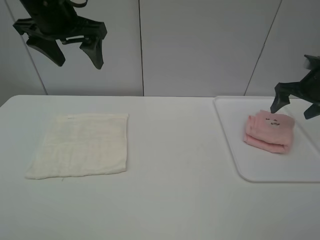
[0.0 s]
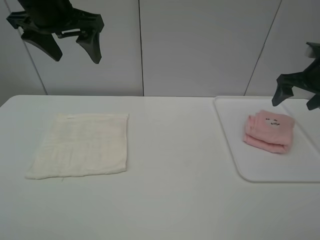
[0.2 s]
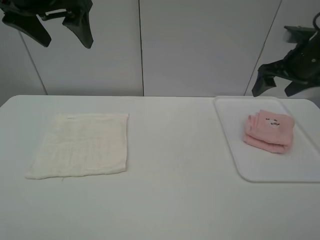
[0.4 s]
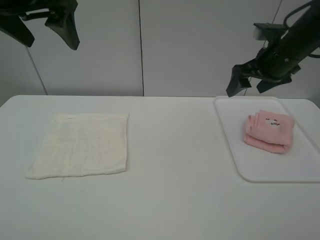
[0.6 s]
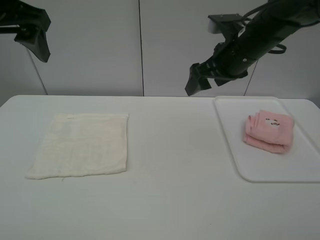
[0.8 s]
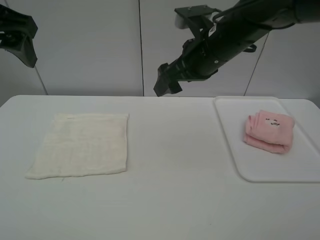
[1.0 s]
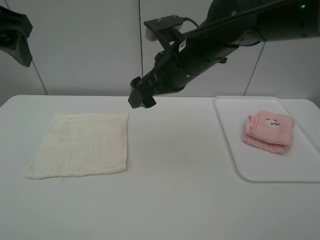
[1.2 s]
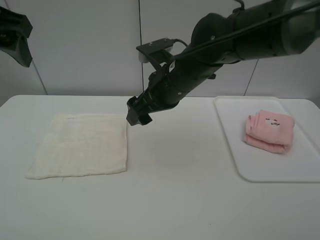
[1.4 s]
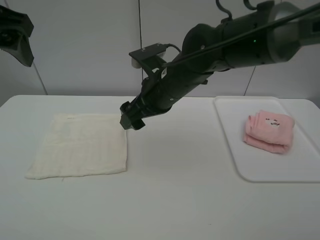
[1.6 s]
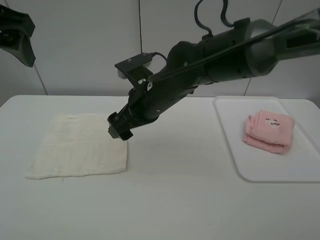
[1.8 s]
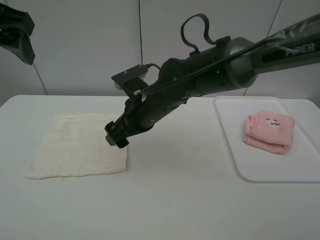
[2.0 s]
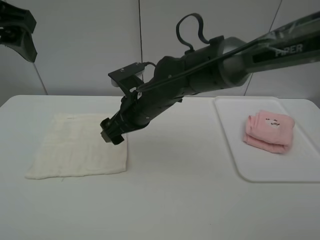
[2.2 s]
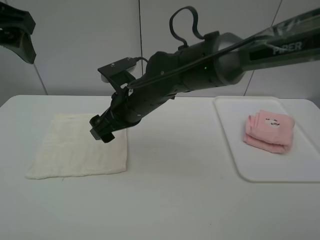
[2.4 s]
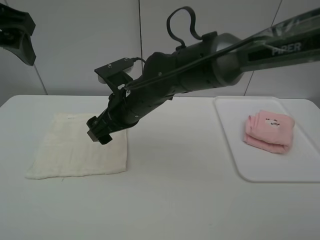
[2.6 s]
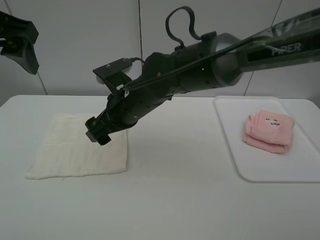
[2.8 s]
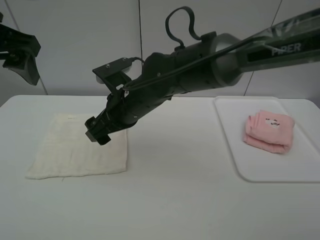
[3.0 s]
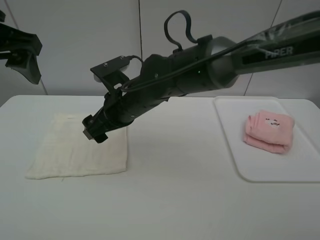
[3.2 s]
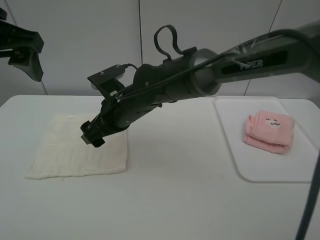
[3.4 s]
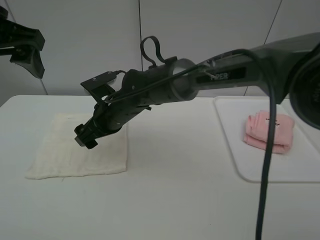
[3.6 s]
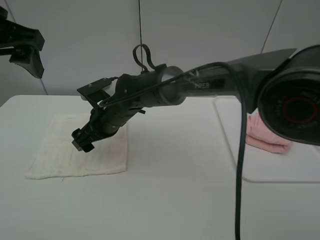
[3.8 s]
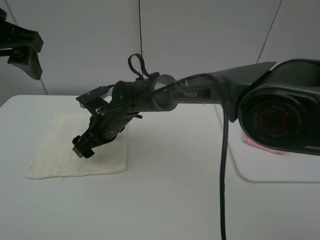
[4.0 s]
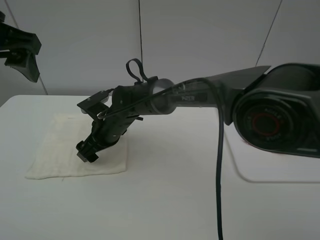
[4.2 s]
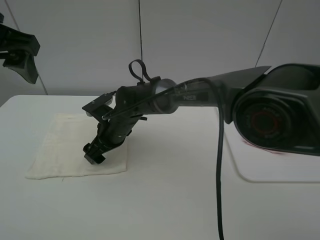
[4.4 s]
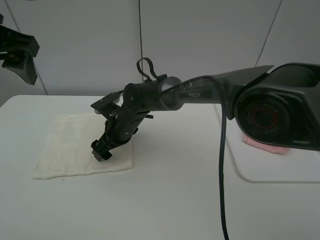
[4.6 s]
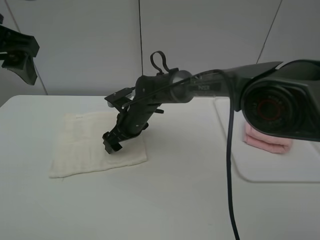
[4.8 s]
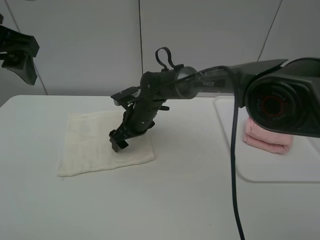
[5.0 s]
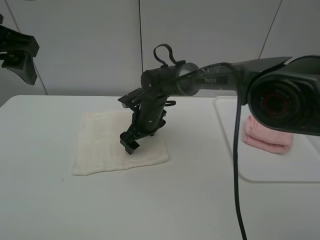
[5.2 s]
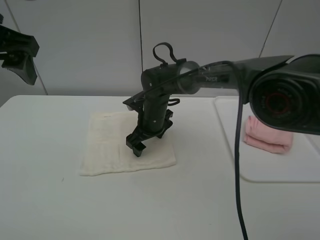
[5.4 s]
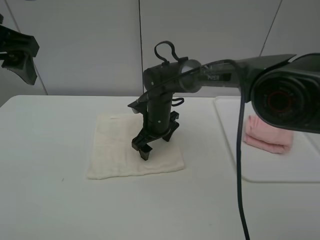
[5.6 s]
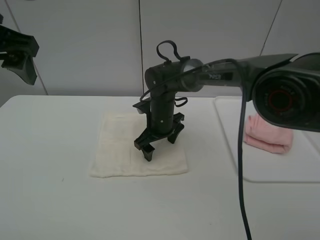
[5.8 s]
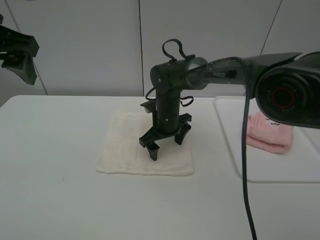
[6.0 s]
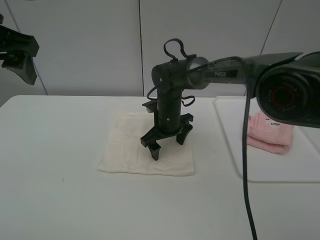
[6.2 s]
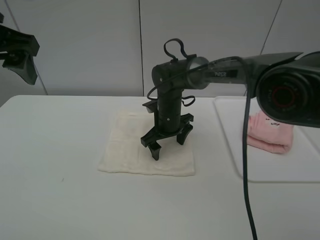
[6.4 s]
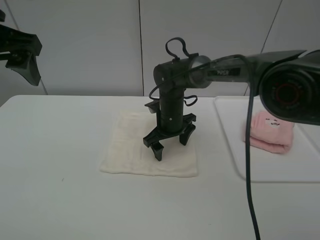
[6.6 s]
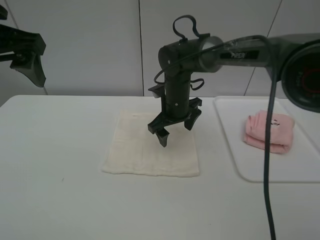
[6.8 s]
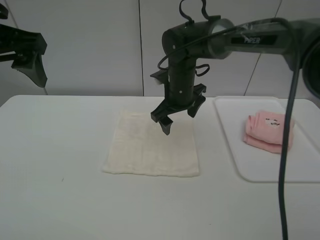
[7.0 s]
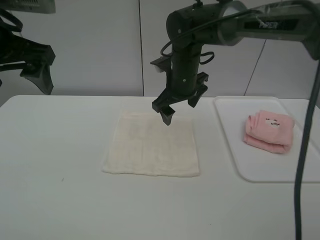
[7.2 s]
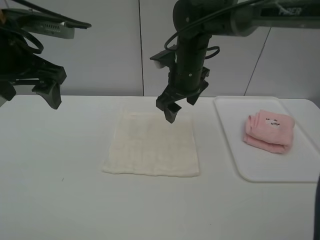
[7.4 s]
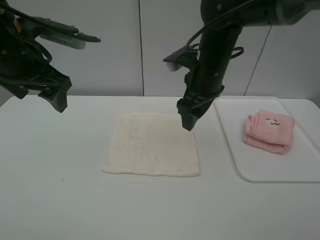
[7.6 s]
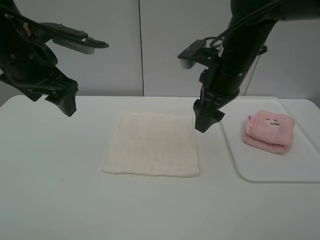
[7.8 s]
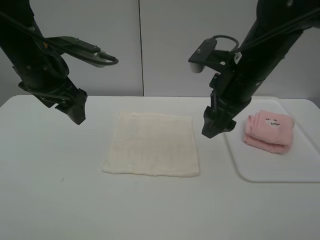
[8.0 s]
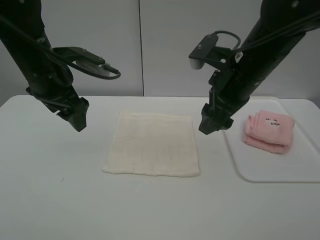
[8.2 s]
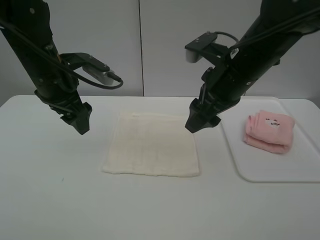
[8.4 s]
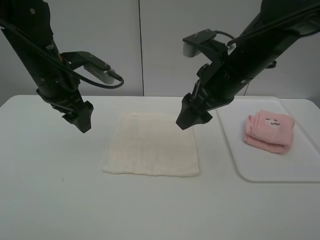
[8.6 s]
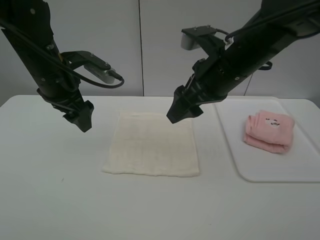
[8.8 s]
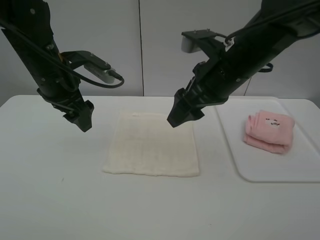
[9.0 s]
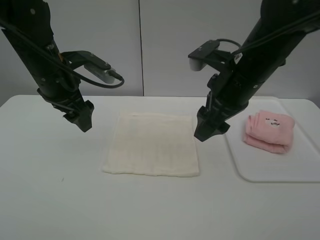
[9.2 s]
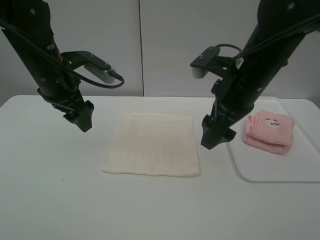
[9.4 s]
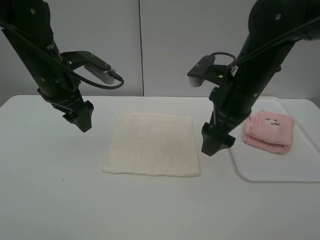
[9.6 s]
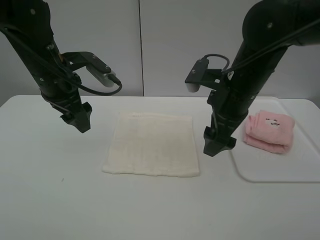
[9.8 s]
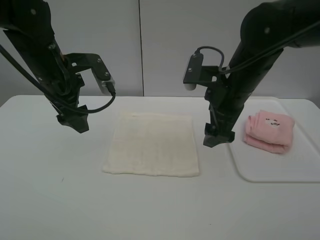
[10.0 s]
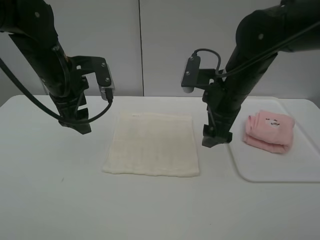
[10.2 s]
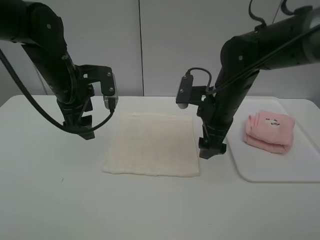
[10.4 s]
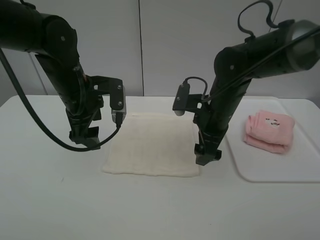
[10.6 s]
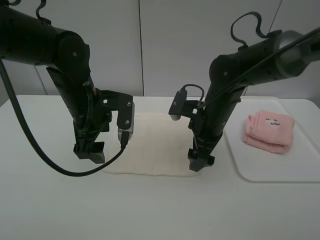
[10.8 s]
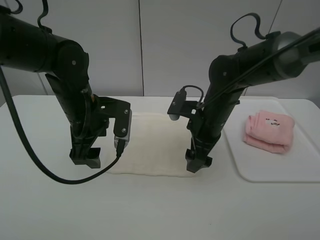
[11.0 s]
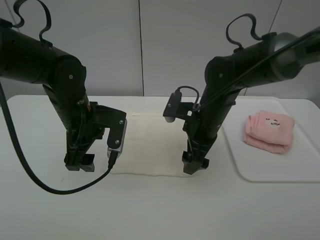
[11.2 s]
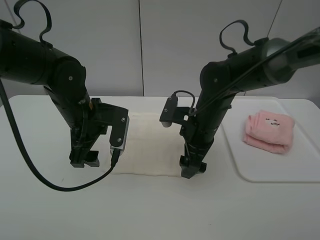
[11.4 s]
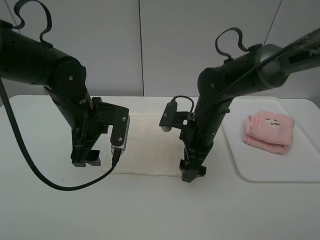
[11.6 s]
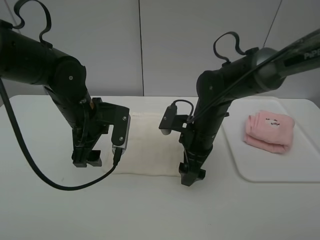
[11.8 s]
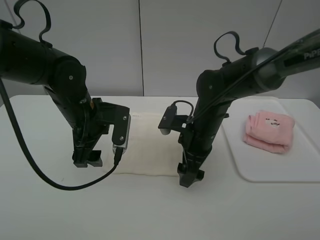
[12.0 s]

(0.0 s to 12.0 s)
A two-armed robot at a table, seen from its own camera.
Task of the whole recording: fold one of the towels by two grippers and place it on the tray,then fold another towel by two grippers and place it on the folded towel.
0.0 s - 1.6 s: The left gripper goes some 10 cm backward and to the left; the right gripper moves to the left, about 35 cm.
1.6 s - 3.0 s: The right gripper moves to the left, some 5 cm.
3.0 s - 4.4 s: The right gripper is displaced downward and forward by about 10 cm.
4.4 s - 6.0 s: The right gripper shifts some 10 cm to the right.
6.0 s - 7.6 s: The right gripper moves upward and to the right, approximately 15 cm. Meanwhile the left gripper travels downward by some 5 cm.
7.6 s - 9.0 s: The left gripper heads downward, covering some 5 cm. The right gripper is displaced backward by about 5 cm.
9.0 s - 10.4 s: The right gripper goes some 10 cm downward.
10.4 s - 12.0 s: The right gripper travels downward by about 5 cm; the left gripper moves roughly 5 cm.

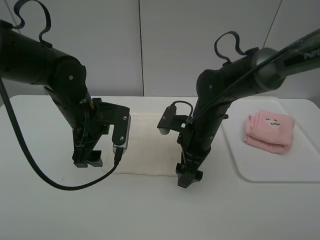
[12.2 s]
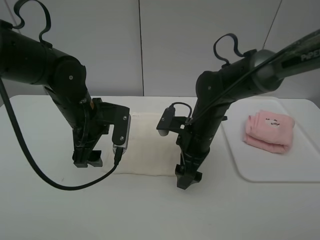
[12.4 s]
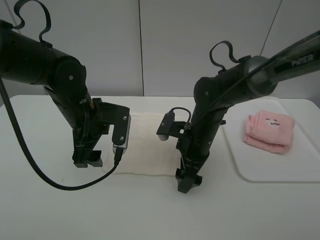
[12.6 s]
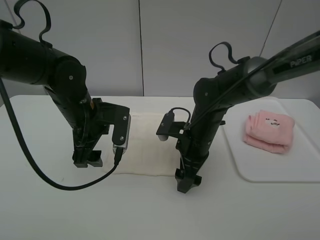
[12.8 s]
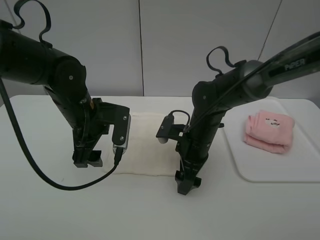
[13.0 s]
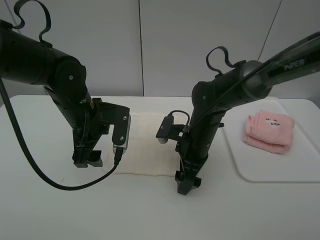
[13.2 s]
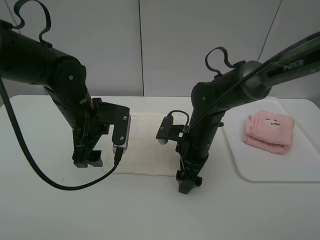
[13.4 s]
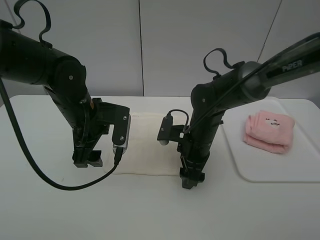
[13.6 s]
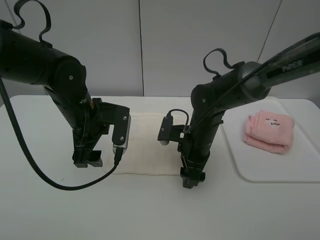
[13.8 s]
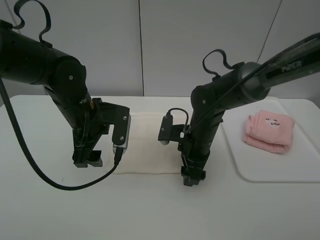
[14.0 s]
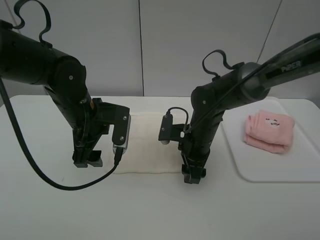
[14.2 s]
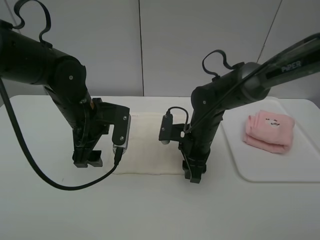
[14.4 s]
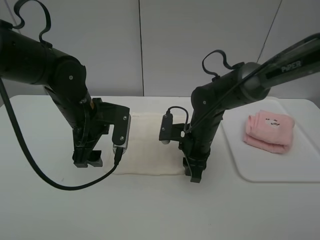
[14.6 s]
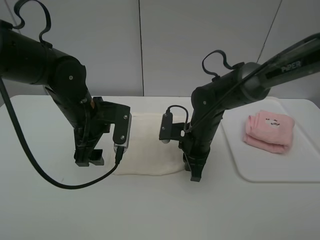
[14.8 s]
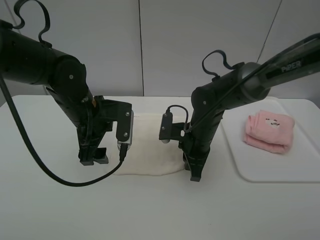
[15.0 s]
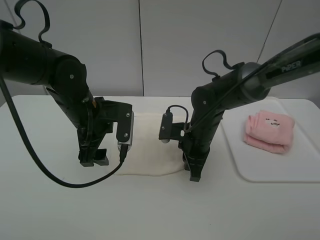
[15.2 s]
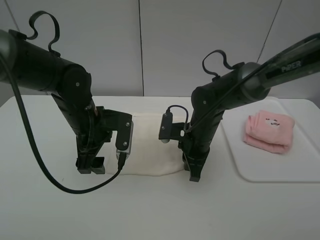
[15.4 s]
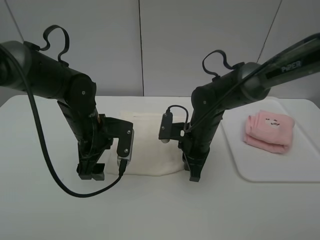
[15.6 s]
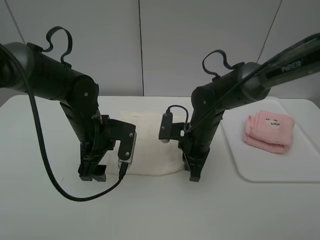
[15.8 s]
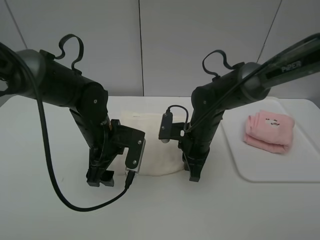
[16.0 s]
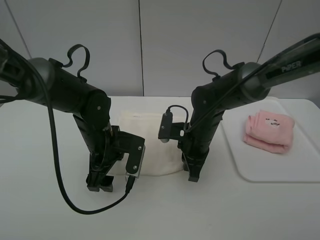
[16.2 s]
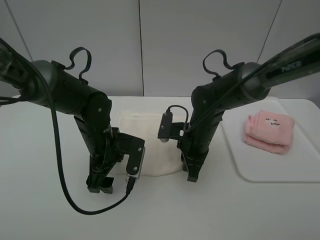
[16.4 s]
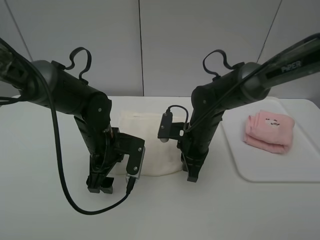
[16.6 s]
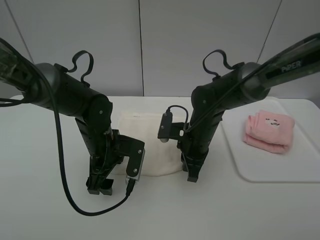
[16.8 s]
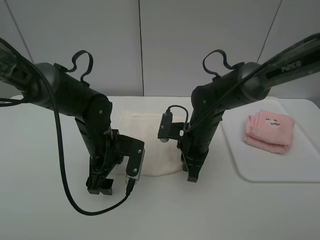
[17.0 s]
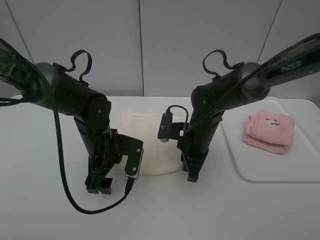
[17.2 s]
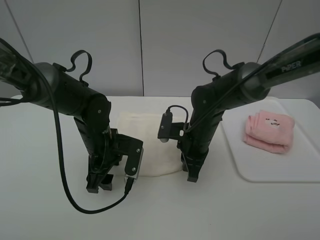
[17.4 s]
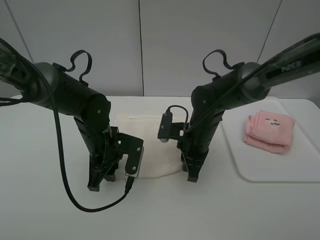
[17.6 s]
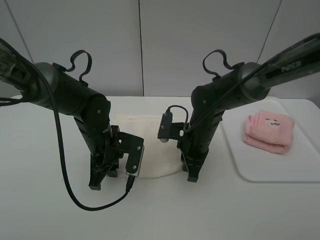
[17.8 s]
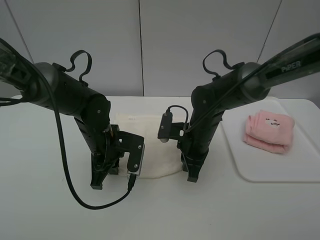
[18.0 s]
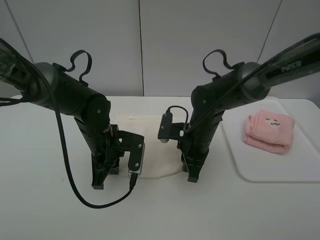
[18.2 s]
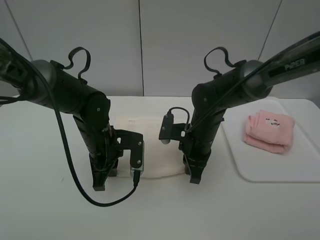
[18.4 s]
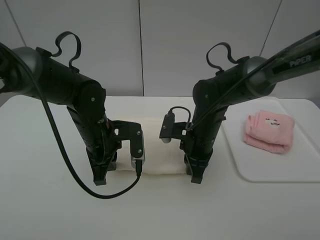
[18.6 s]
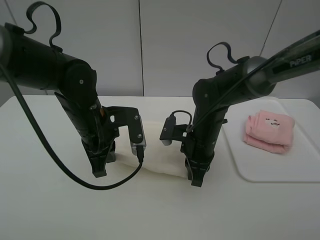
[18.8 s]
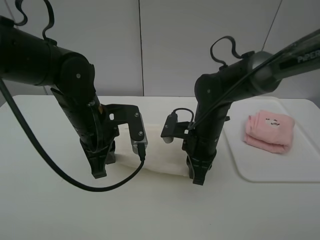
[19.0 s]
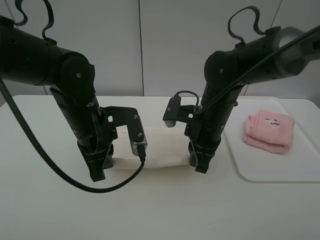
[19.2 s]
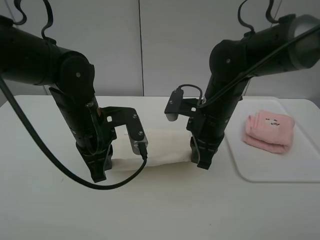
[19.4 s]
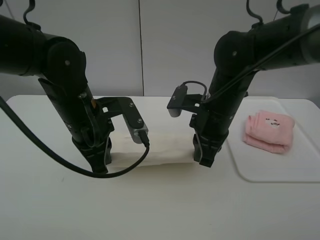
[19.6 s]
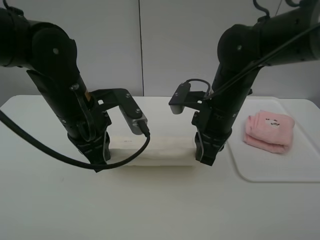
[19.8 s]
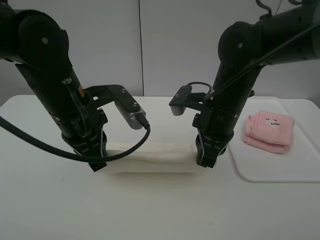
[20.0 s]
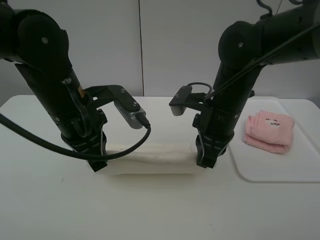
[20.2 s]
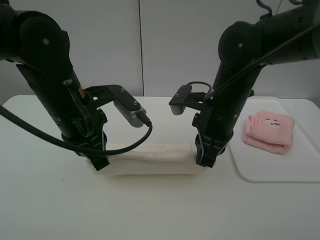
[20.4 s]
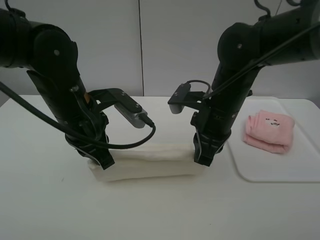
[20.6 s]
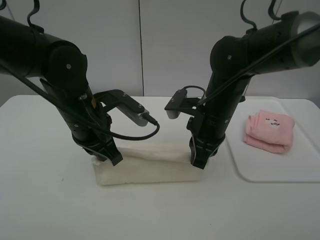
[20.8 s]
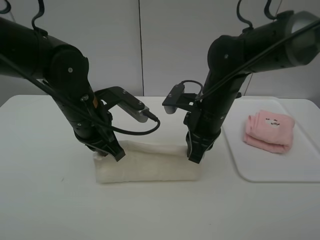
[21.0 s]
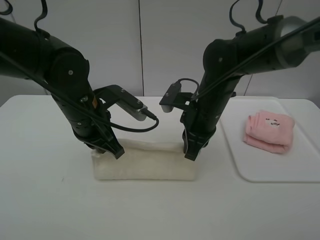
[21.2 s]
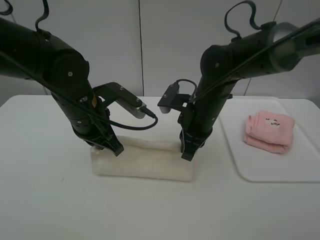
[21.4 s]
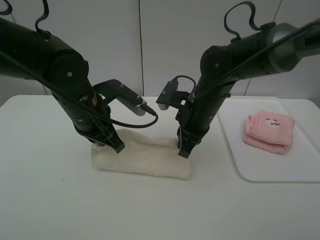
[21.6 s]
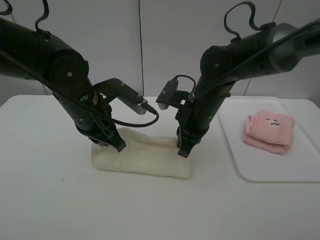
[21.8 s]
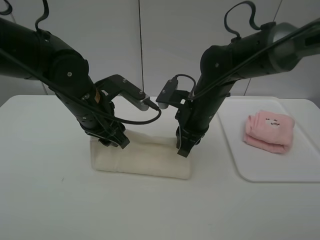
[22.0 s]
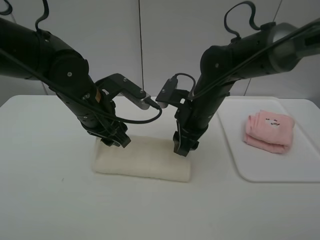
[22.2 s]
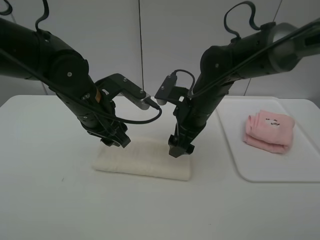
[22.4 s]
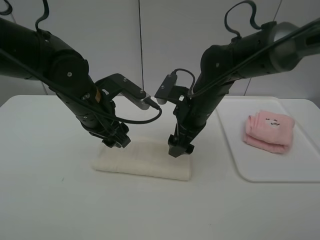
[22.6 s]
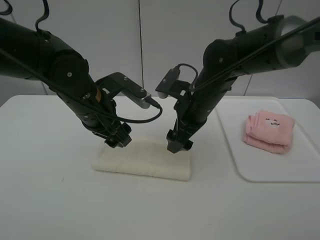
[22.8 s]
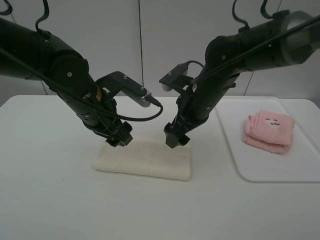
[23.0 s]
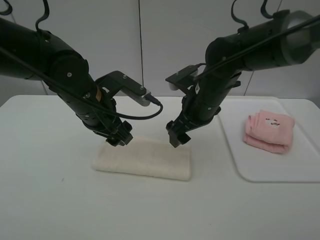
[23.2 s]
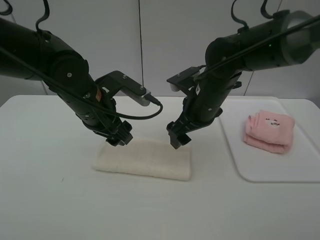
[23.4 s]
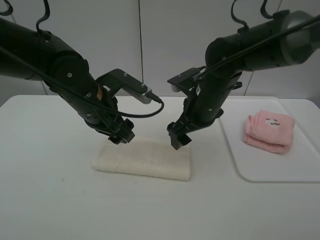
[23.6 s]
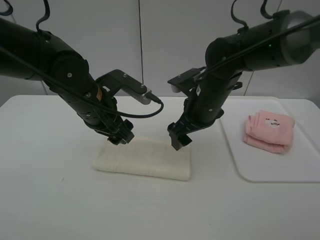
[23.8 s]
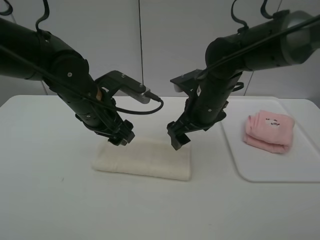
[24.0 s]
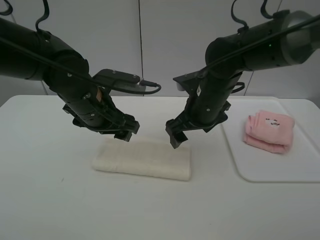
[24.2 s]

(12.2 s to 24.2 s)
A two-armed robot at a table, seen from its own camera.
Task of the whole recording: fold one of the towels by two grippers and place it on the tray,then fold another towel by two grippers and place it on the folded towel.
Step, 12.2 s - 17.8 s: Grasp the white towel with the left gripper.
Step, 18.0 s - 22.2 s: Fold the white towel upwards with the left gripper.
12.2 s - 13.8 s: The grippers move only a little.
13.8 s - 15.2 s: The right gripper closes up.
15.2 s - 16.6 s: The left gripper heads downward, covering approximately 5 cm.
16.6 s - 18.2 s: The left gripper closes up.
18.2 s - 19.8 s: The two grippers go roughly 10 cm upward.
21.2 s - 22.6 s: The right gripper opens its fingers. Meanwhile the left gripper opens its fingers.
